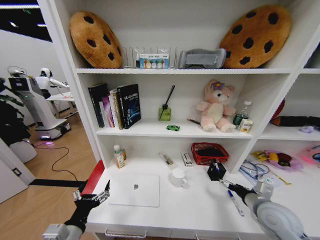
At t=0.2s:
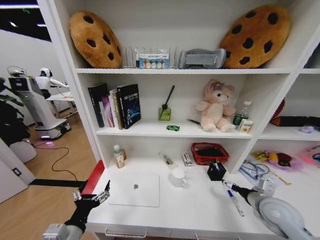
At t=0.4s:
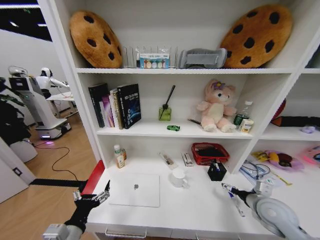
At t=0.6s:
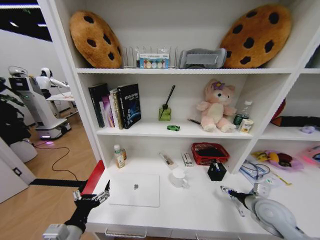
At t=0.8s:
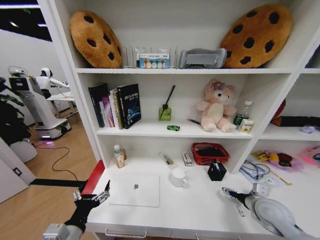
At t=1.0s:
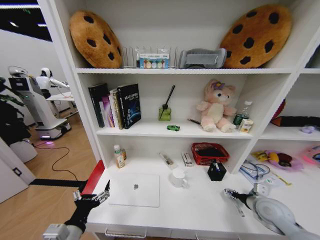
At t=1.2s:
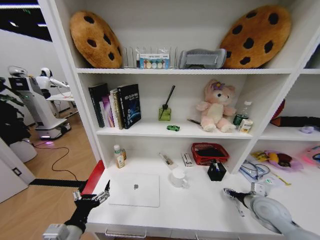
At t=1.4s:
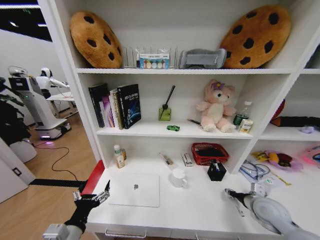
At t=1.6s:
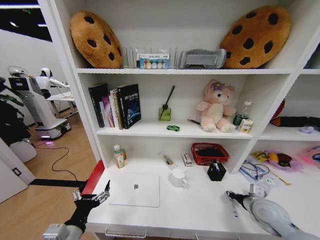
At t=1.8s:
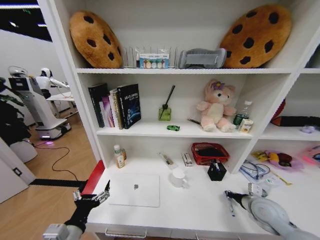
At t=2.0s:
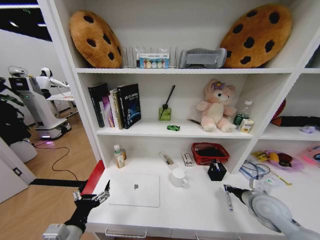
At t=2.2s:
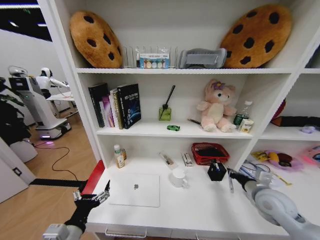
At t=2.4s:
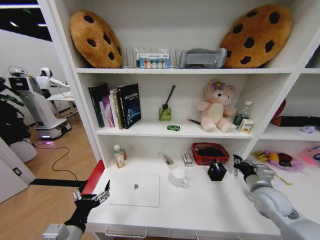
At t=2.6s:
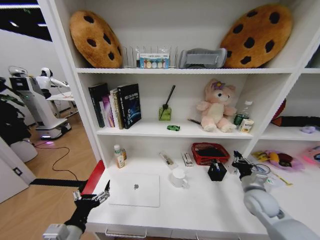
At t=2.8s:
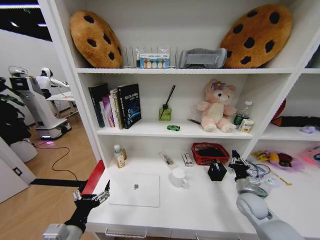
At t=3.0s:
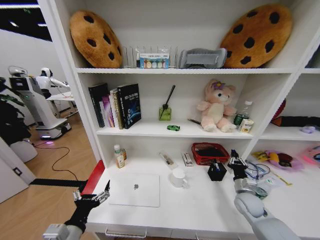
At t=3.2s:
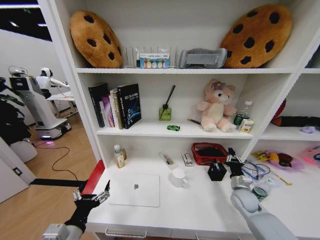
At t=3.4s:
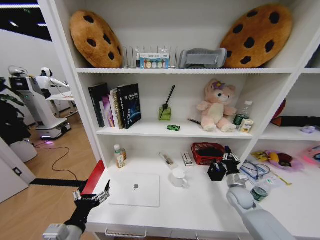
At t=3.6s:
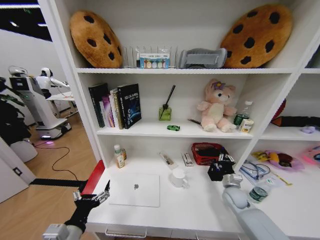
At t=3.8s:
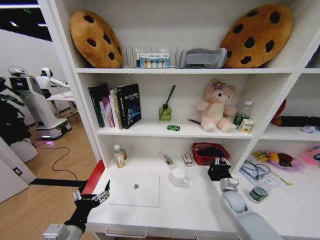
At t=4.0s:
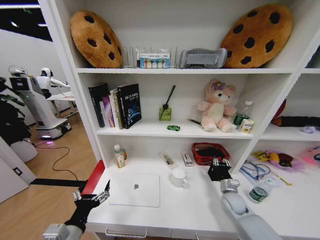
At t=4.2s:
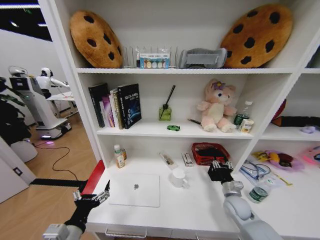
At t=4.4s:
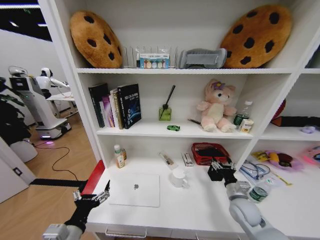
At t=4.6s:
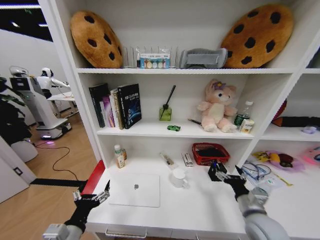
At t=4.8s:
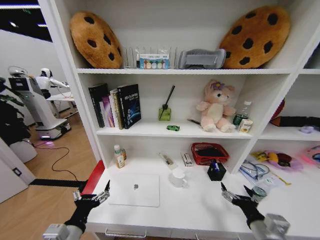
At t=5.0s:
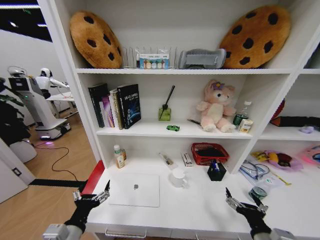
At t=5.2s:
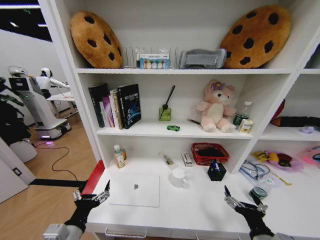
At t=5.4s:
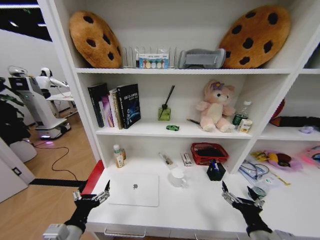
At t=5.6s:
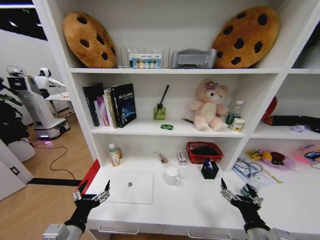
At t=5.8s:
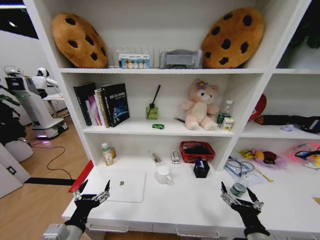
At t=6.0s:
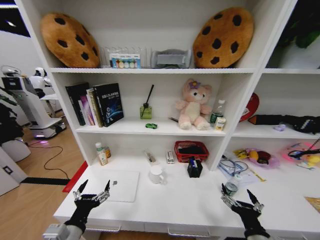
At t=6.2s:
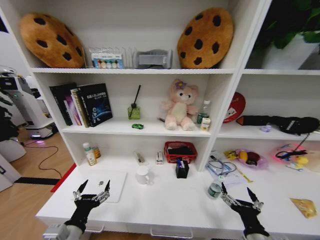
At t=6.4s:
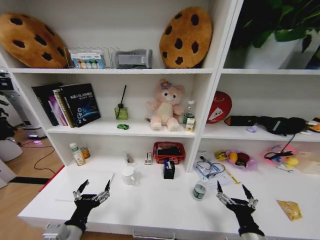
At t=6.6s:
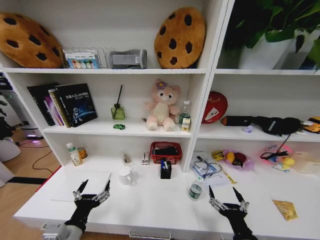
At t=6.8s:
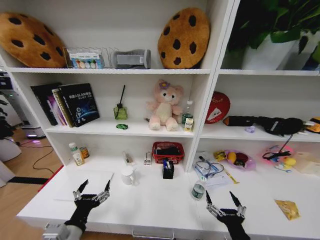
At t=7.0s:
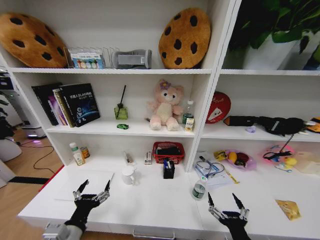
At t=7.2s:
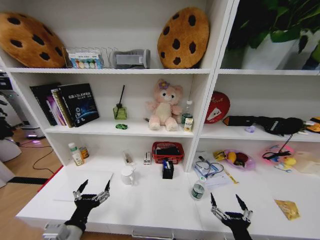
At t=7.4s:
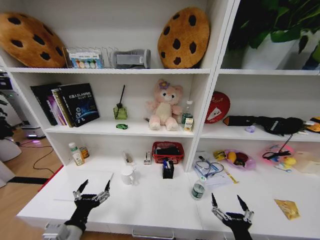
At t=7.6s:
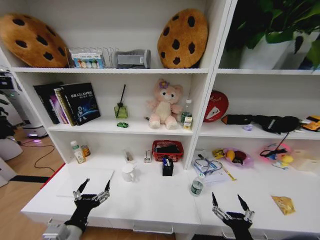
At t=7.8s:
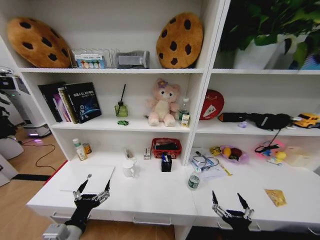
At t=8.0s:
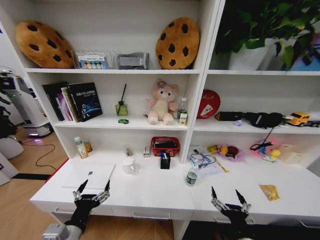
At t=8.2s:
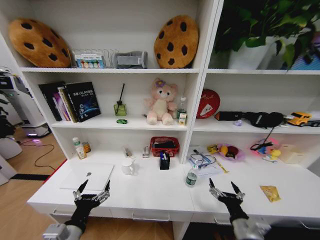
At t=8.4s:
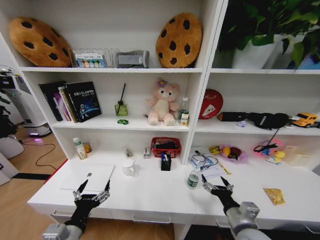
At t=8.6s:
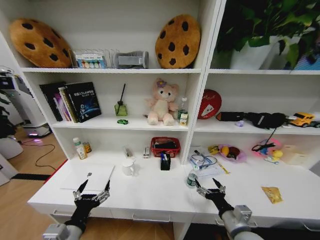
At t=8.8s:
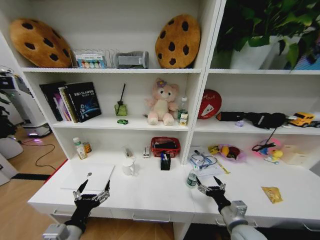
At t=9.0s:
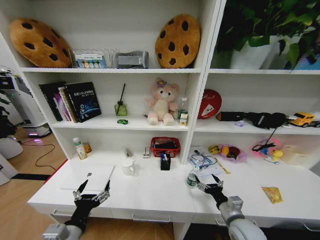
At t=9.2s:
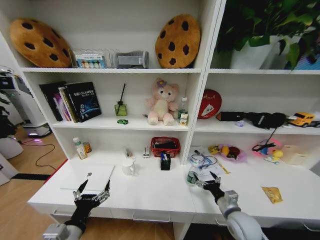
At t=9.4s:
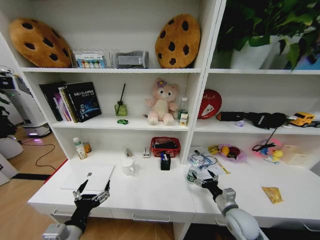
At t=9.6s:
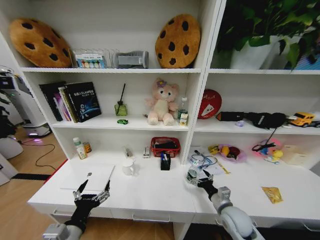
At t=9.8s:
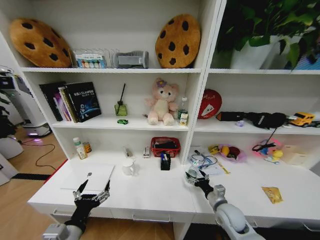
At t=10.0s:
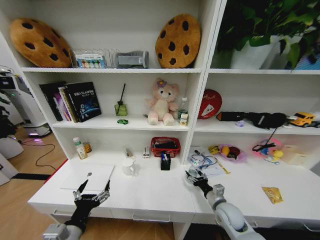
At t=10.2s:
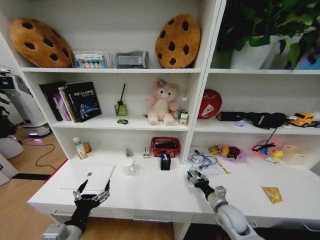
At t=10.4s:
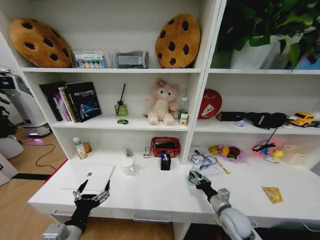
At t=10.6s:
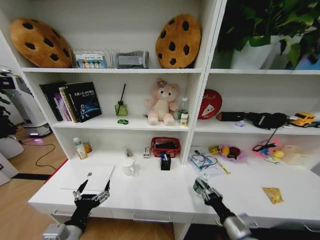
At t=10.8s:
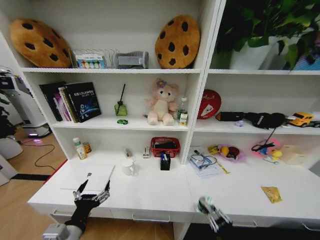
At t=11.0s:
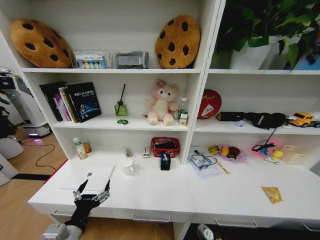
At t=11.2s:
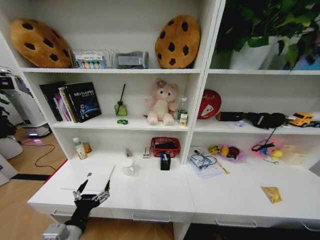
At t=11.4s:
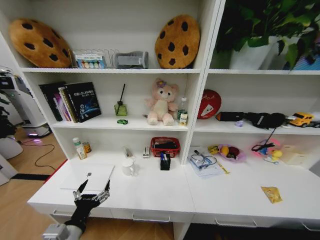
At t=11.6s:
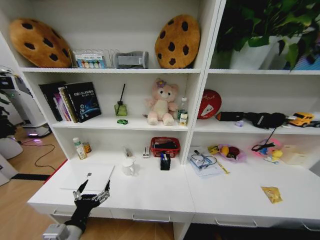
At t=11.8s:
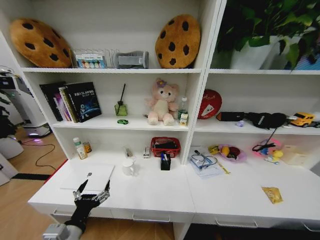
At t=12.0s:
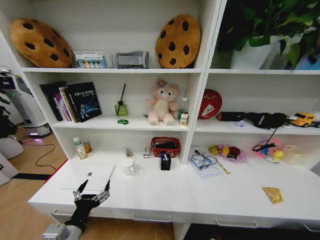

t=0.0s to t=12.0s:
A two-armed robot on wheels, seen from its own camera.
Task of the whole recording: Organize the objects on the table.
t=0.0s to t=1.6s: The right gripper goes about 5 cm downward, and closes up.
t=1.6s to t=3.0s: The right gripper travels downward and forward by some 10 cm.
t=3.0s to t=4.4s: The right gripper goes some 5 cm to the left, and opens.
t=4.4s to t=6.0s: The right gripper shifts roughly 20 cm backward.
t=6.0s to t=7.6s: The right gripper shifts by about 5 cm.
t=7.6s to t=9.0s: The right gripper heads forward, covering some 15 cm.
t=9.0s to t=10.4s: The right gripper moves roughly 5 cm, and closes.
t=10.4s to t=12.0s: The right gripper travels downward and backward by some 40 cm.

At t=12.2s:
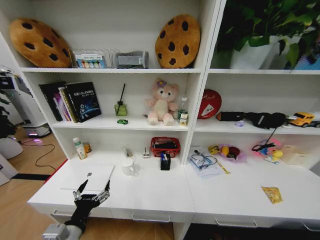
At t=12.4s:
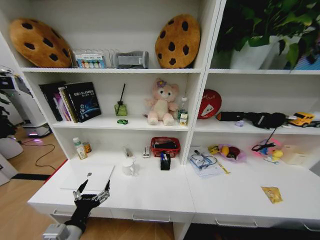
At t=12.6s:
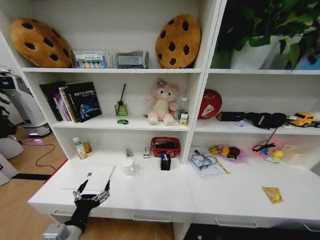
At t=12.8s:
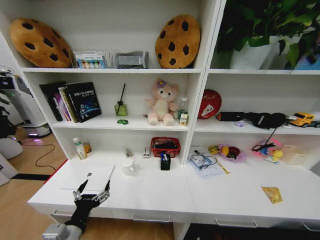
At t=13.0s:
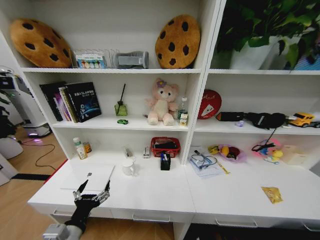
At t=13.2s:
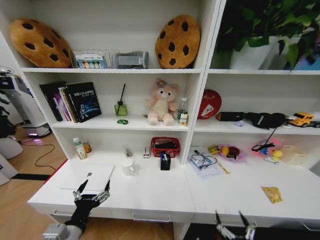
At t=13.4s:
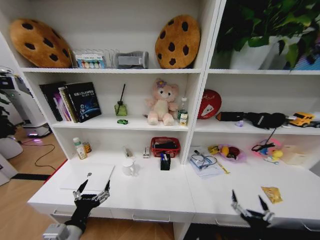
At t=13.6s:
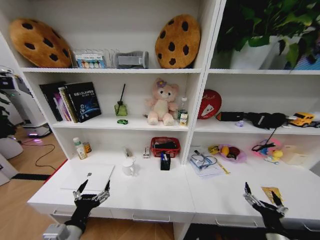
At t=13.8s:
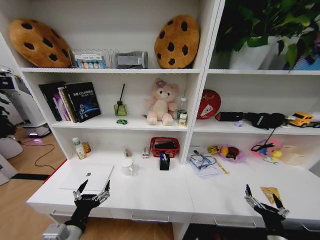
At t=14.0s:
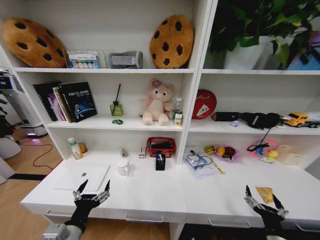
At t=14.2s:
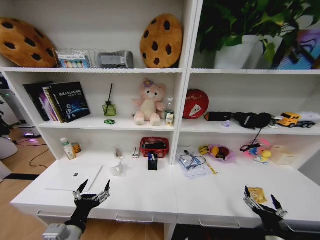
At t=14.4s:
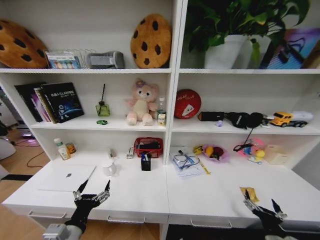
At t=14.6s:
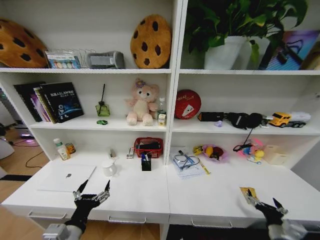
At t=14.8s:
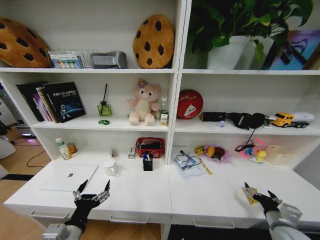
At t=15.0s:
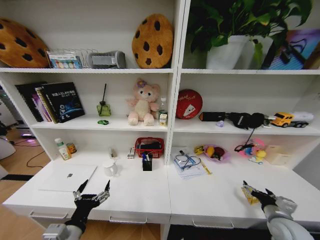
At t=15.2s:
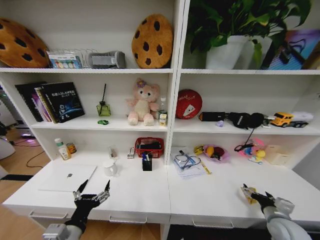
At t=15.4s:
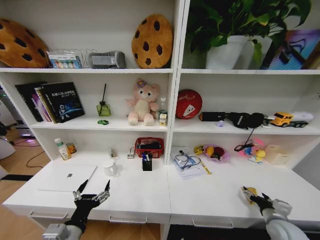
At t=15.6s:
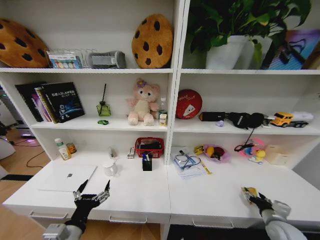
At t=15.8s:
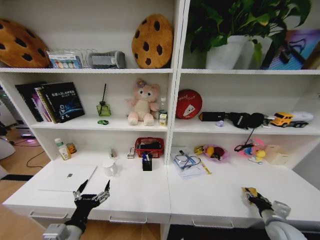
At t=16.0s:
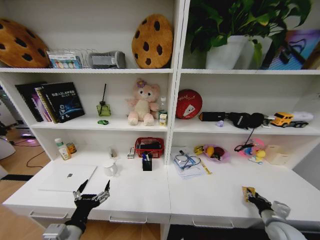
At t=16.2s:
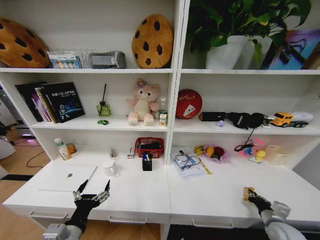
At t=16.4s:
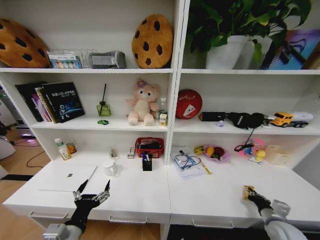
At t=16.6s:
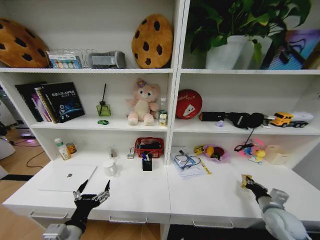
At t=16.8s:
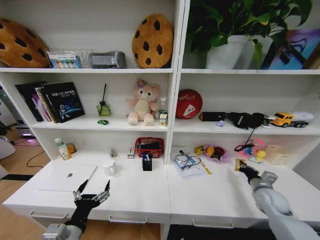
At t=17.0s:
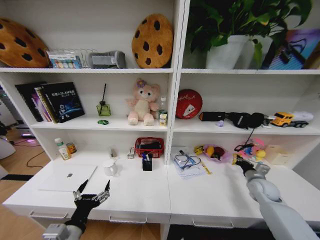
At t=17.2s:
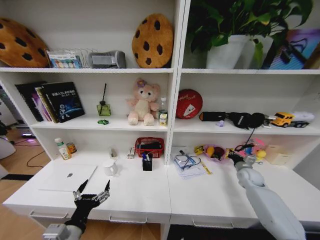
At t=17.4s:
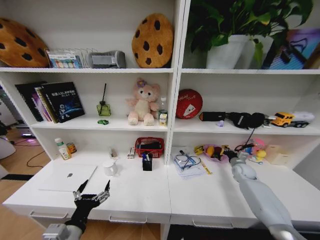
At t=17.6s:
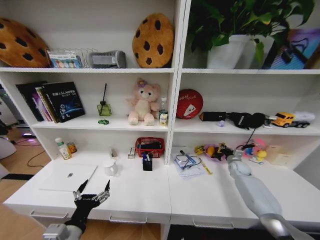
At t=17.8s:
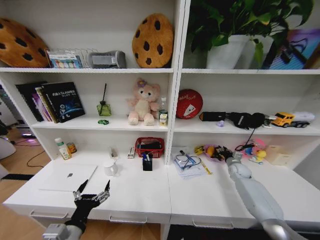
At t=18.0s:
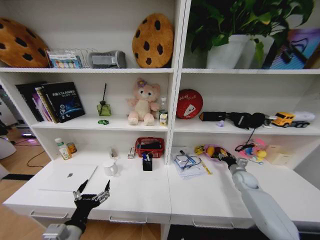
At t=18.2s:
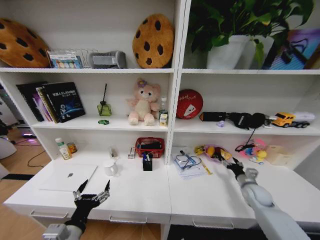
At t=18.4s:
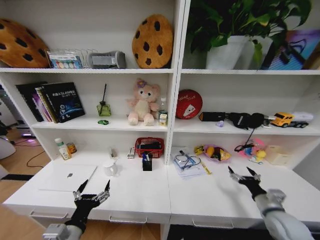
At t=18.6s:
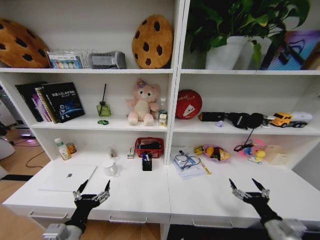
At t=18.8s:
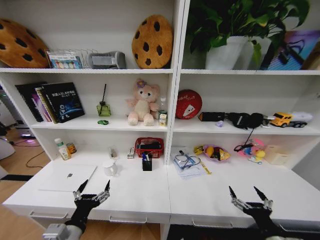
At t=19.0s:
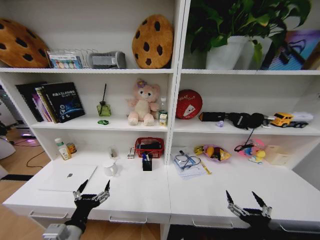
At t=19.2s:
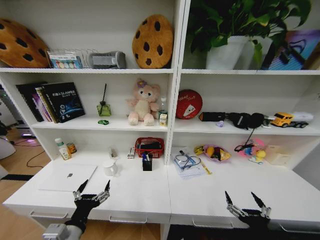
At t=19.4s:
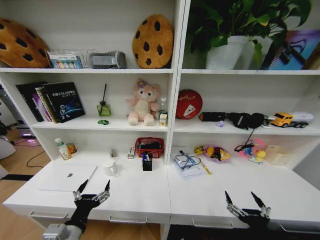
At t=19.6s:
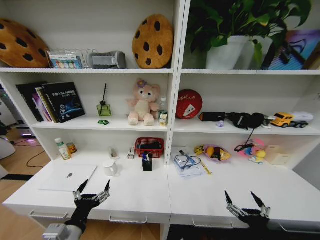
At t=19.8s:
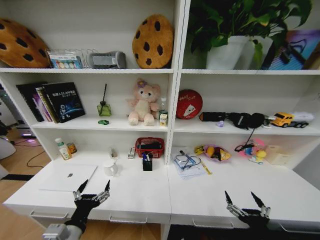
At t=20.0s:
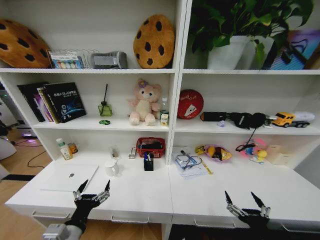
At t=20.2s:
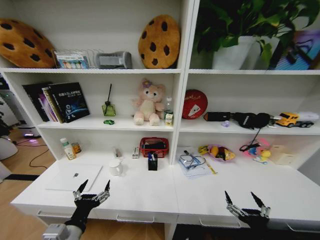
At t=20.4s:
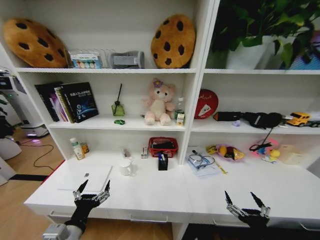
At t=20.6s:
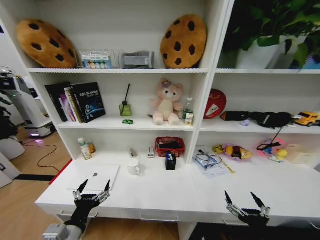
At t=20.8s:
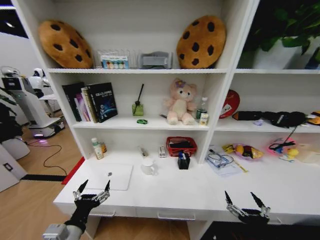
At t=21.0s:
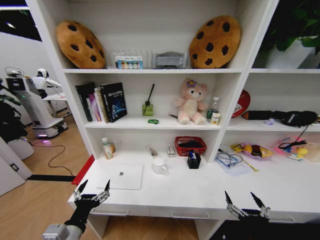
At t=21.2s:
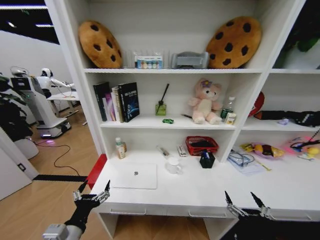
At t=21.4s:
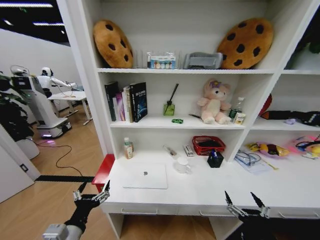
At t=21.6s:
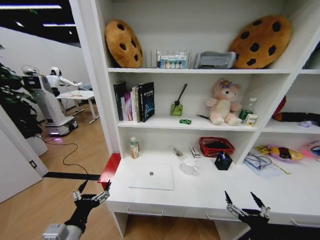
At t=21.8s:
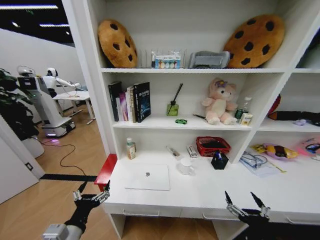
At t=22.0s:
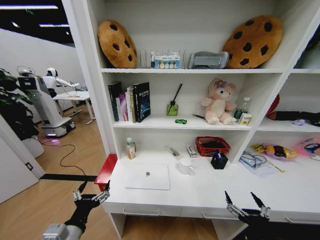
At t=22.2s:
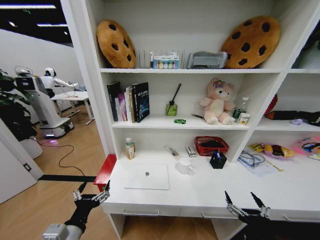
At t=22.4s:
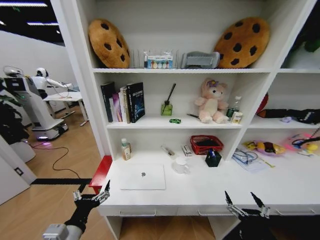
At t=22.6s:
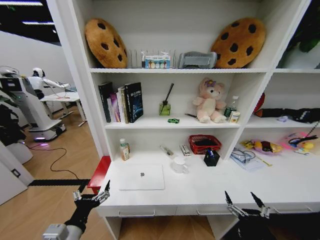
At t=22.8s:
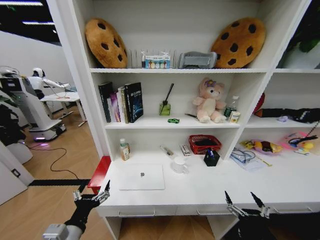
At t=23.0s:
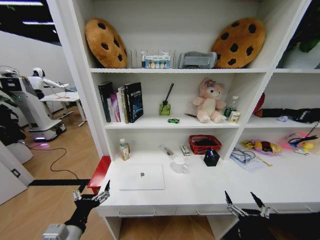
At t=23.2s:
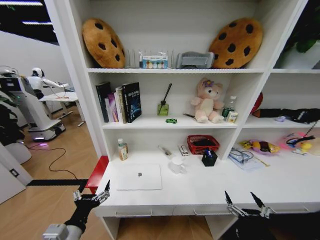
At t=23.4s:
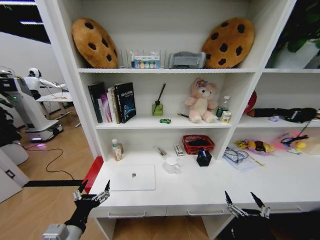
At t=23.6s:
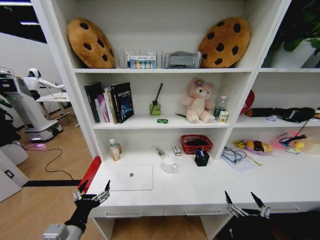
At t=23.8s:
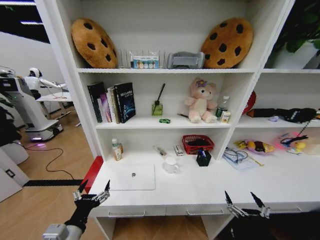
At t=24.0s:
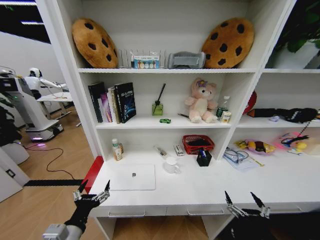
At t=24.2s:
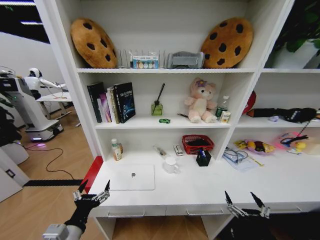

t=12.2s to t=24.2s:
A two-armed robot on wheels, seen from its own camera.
Task of the whole recording: Organize the objects on the table.
t=12.2s to t=13.8s: The right gripper shifts about 35 cm upward, and opens.
t=13.8s to t=15.2s: The right gripper moves forward and to the right, approximately 15 cm.
t=15.2s to t=16.6s: The right gripper closes up.
t=16.6s to t=18.2s: The right gripper heads forward, covering roughly 10 cm, and opens.
t=18.2s to t=19.8s: The right gripper travels backward and to the left by about 30 cm.
